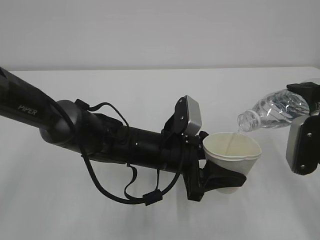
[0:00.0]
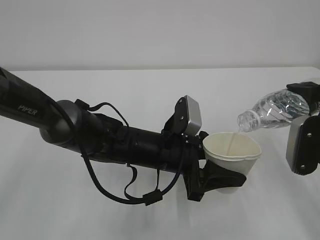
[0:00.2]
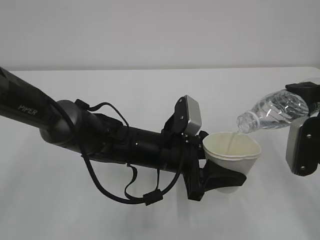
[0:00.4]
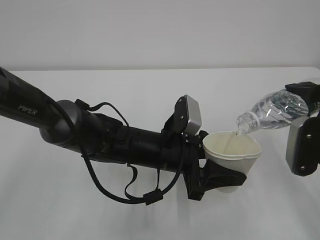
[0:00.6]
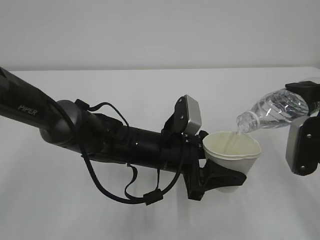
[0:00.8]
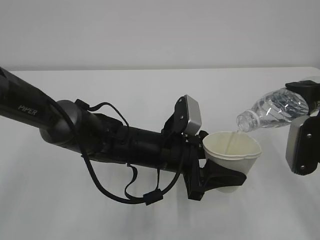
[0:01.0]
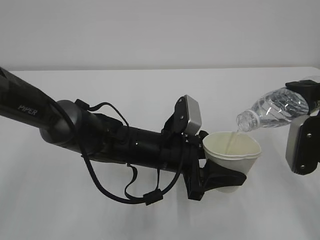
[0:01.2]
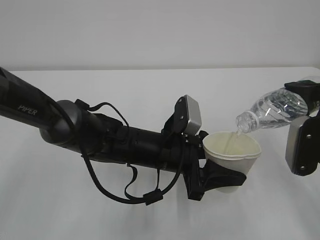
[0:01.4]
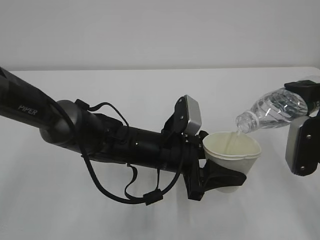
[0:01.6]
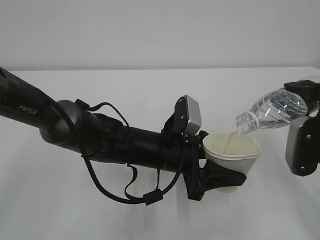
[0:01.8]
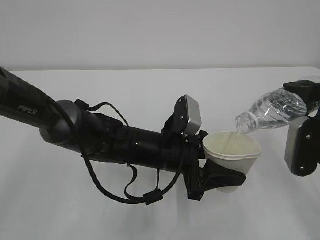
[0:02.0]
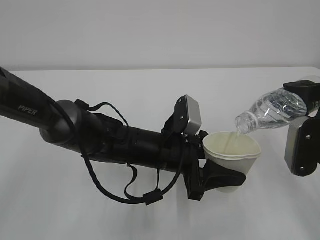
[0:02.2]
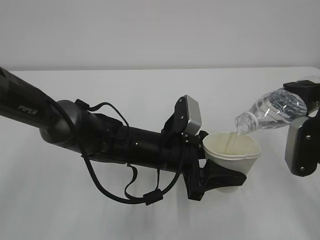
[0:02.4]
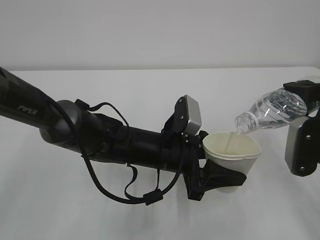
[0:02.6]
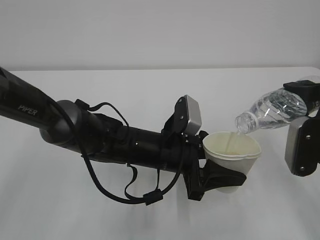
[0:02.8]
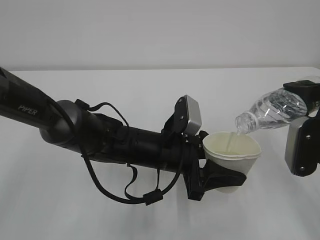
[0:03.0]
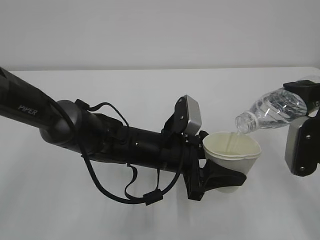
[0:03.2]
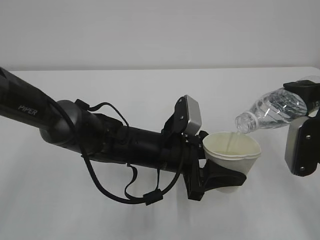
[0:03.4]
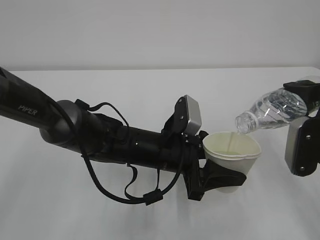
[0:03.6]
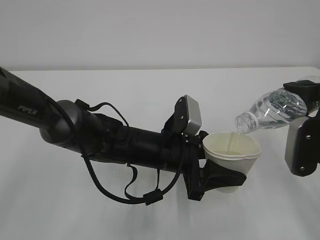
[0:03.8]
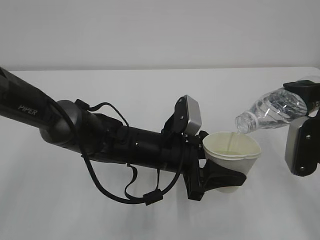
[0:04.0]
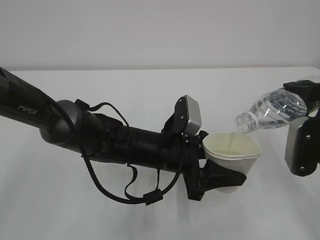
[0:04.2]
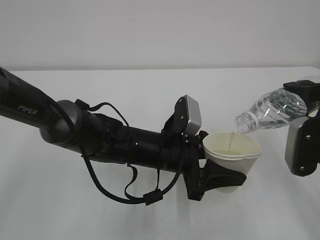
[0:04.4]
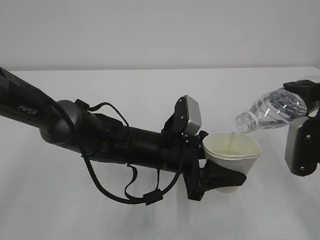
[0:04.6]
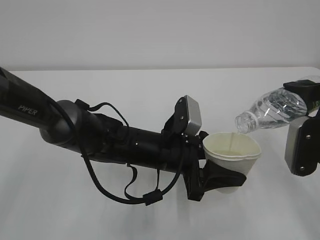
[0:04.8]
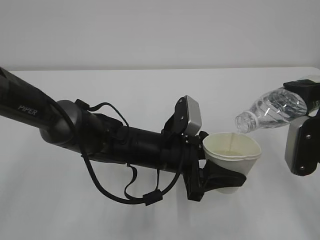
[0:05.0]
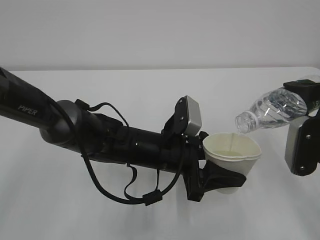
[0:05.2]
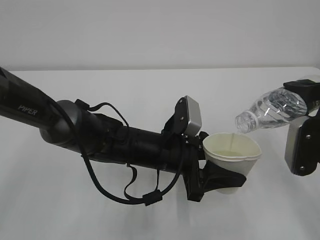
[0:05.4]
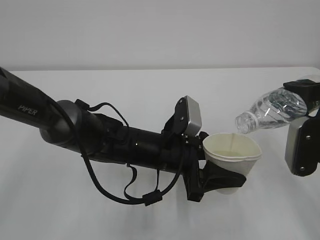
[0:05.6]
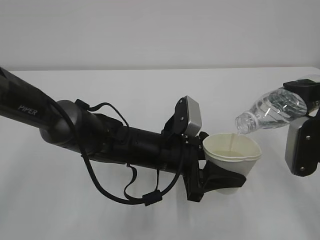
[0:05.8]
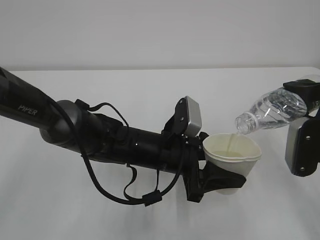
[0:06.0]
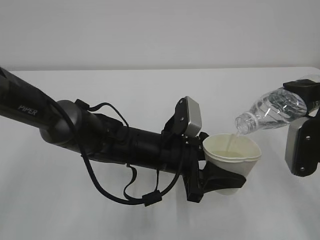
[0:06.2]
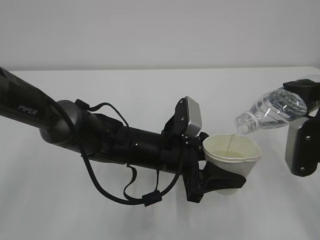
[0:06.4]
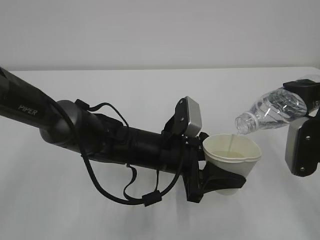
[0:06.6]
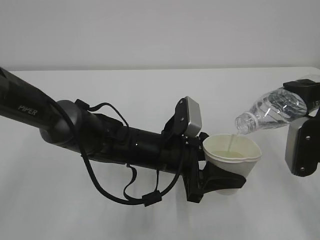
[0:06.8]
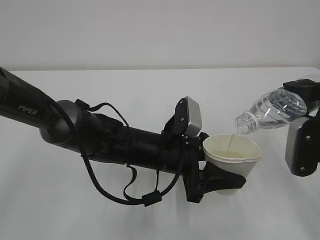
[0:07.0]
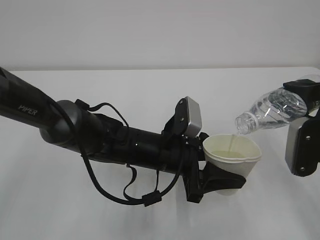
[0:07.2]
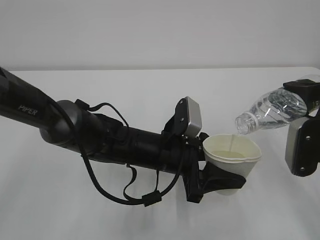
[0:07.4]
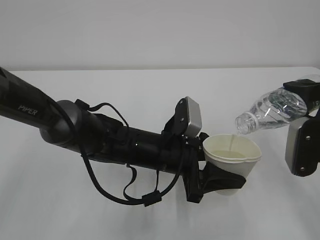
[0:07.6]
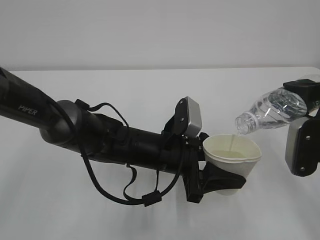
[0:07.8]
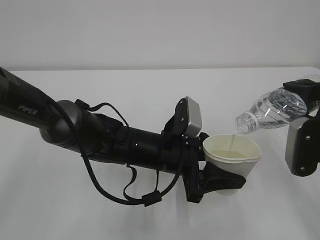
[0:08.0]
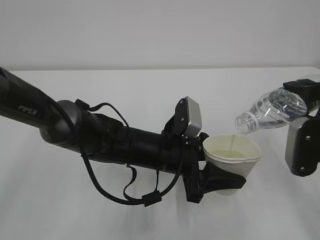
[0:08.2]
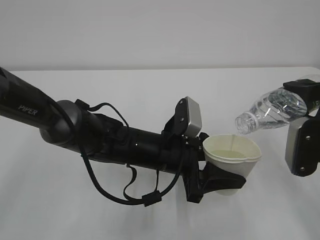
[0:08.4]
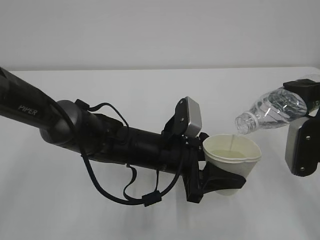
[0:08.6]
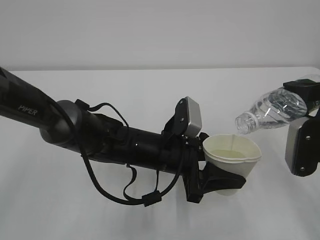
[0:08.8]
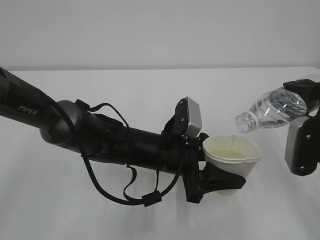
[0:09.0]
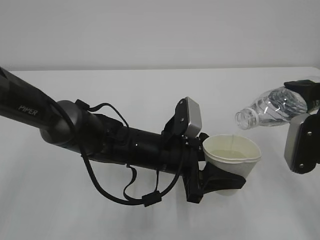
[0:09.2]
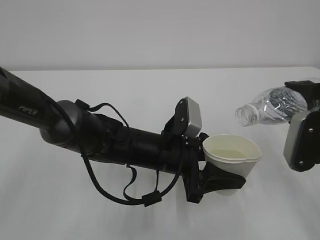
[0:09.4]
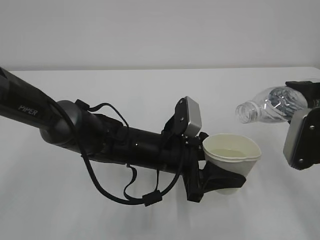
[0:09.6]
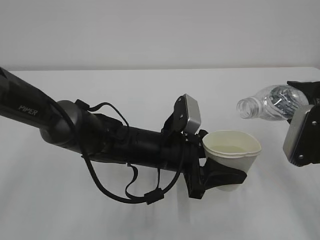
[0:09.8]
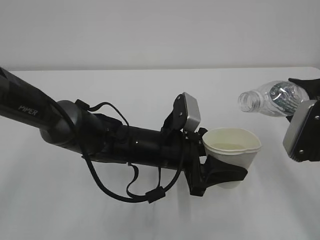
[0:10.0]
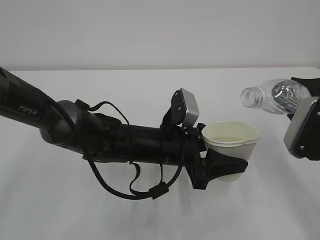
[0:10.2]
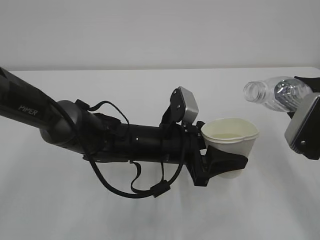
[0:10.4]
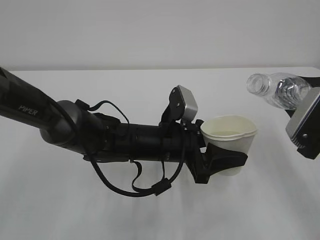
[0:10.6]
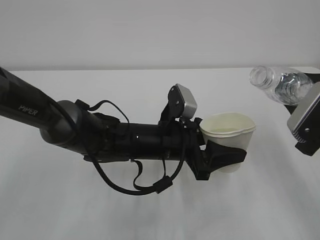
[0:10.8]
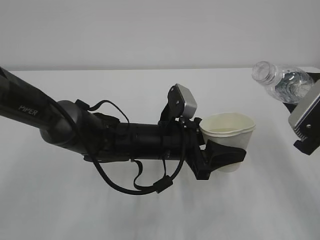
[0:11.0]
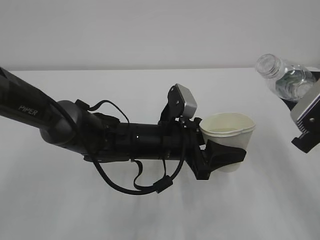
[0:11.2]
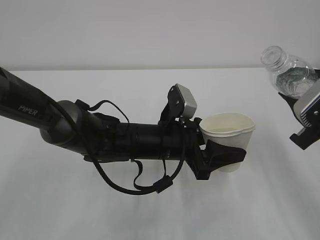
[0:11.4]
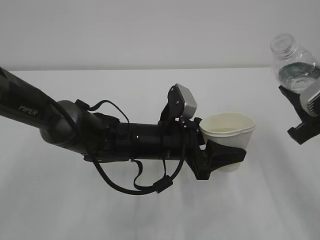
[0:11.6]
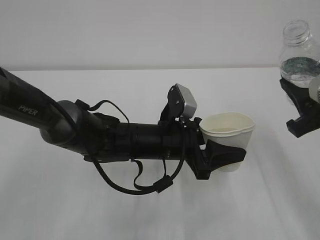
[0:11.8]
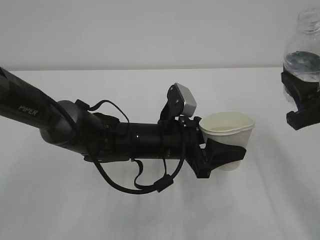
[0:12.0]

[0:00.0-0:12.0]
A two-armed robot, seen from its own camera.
0:00.0 to 0:09.0: Both grippers stay put.

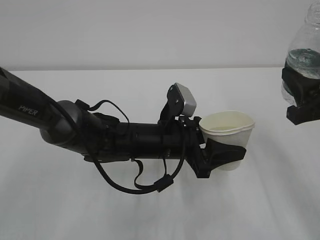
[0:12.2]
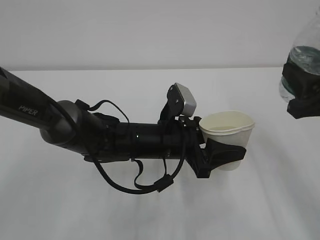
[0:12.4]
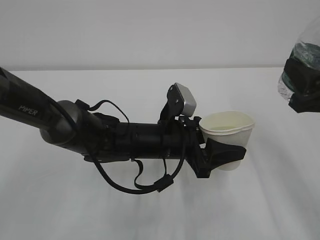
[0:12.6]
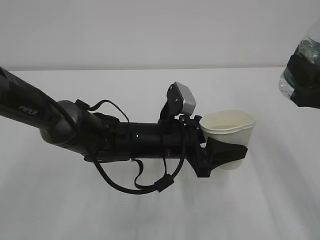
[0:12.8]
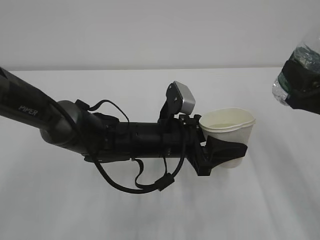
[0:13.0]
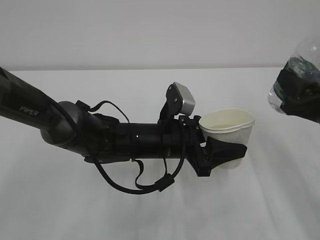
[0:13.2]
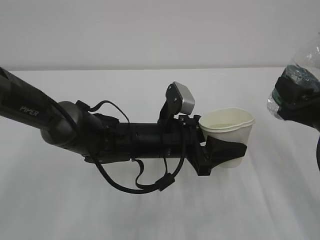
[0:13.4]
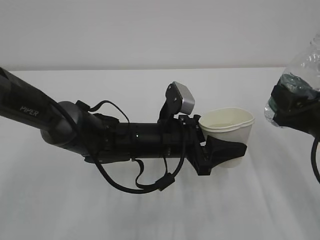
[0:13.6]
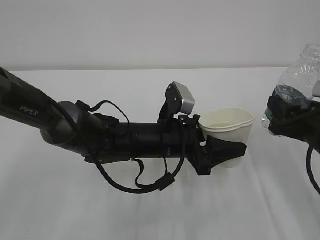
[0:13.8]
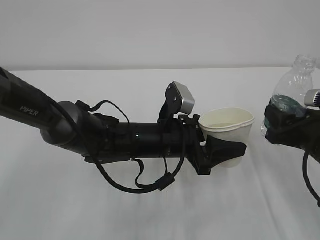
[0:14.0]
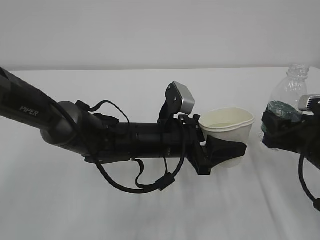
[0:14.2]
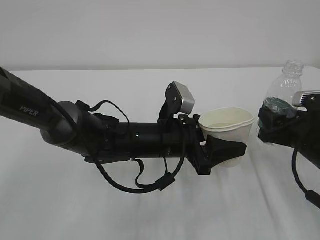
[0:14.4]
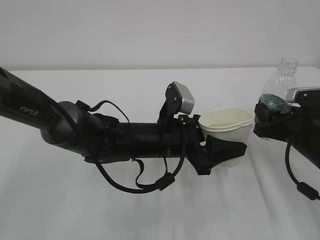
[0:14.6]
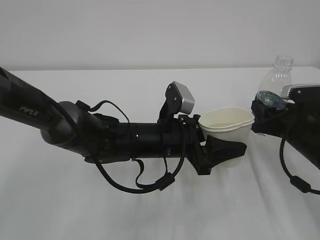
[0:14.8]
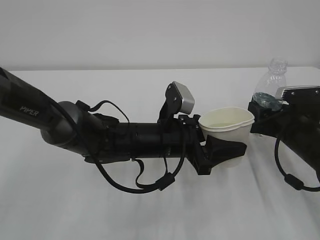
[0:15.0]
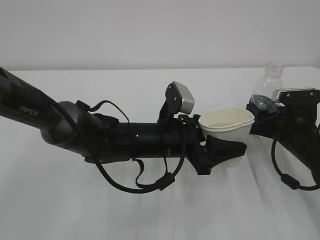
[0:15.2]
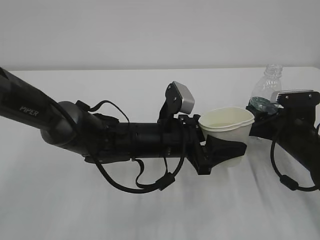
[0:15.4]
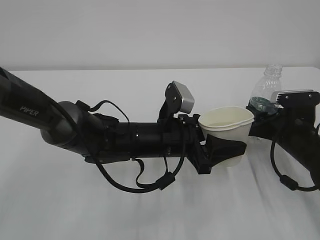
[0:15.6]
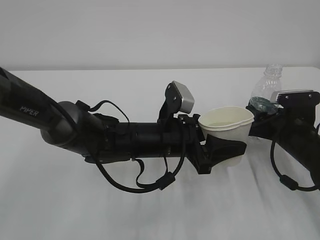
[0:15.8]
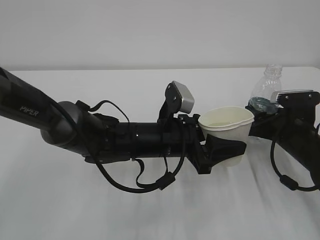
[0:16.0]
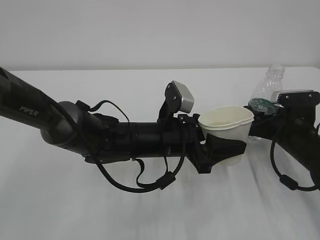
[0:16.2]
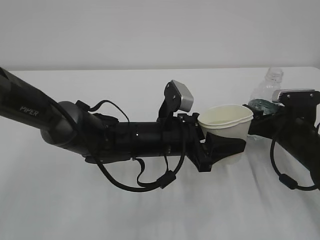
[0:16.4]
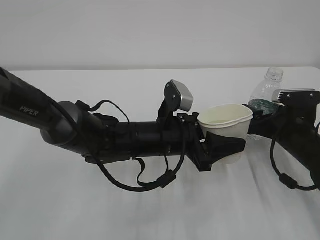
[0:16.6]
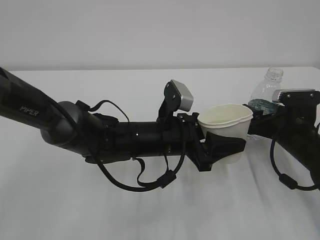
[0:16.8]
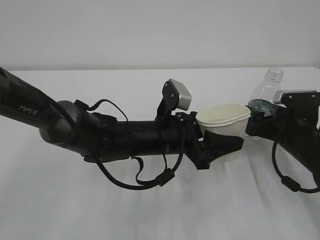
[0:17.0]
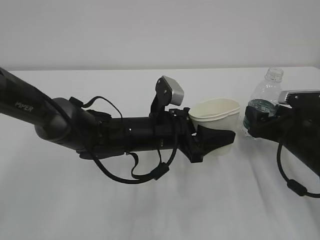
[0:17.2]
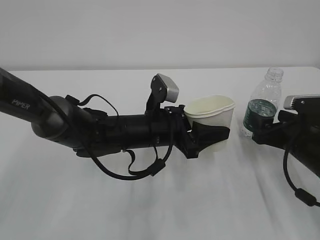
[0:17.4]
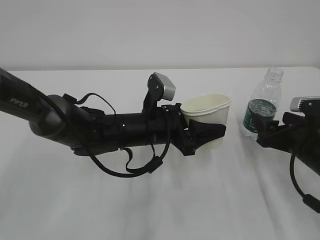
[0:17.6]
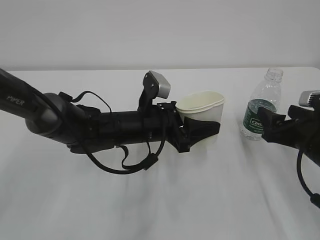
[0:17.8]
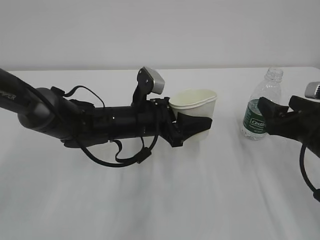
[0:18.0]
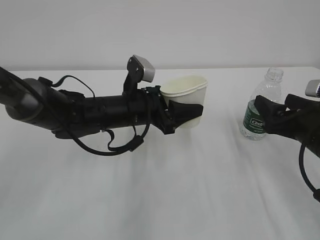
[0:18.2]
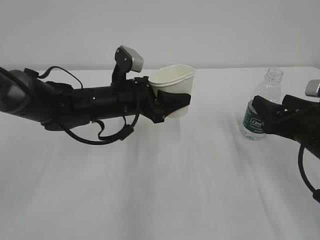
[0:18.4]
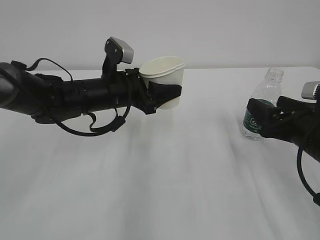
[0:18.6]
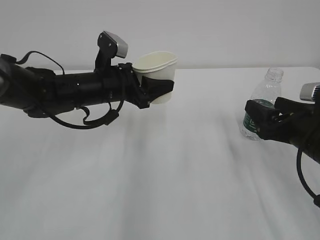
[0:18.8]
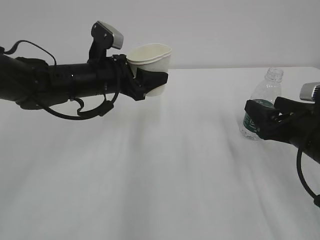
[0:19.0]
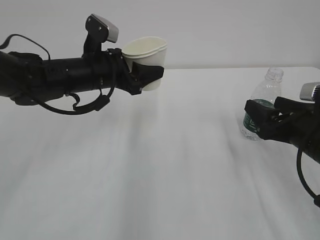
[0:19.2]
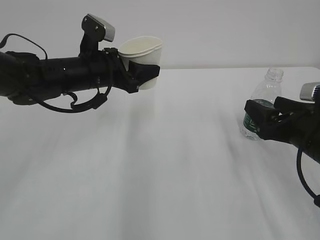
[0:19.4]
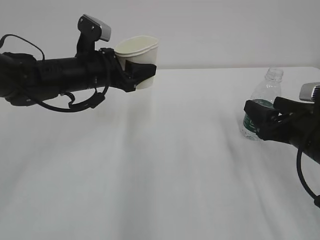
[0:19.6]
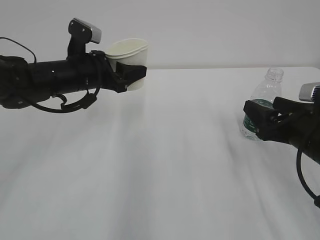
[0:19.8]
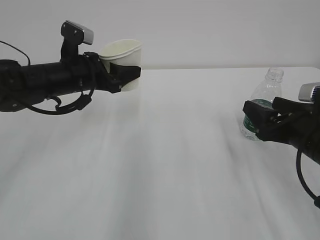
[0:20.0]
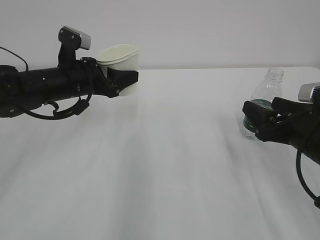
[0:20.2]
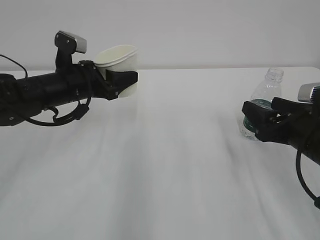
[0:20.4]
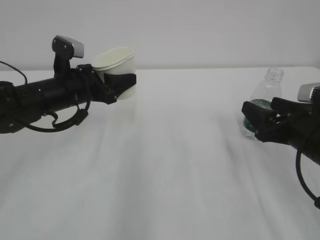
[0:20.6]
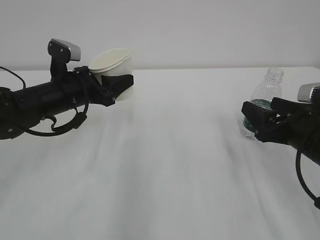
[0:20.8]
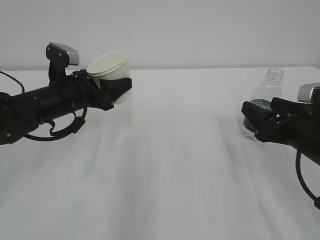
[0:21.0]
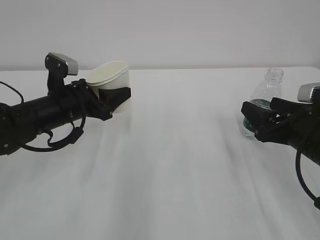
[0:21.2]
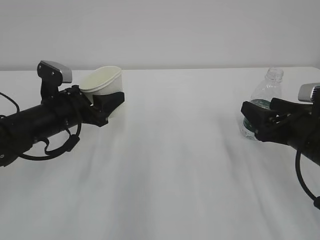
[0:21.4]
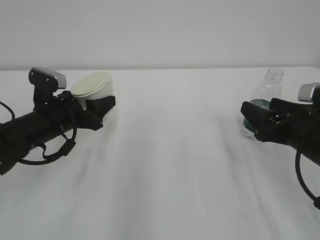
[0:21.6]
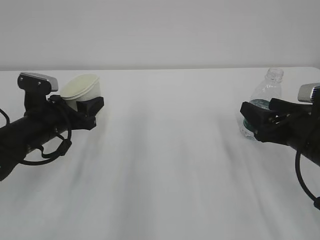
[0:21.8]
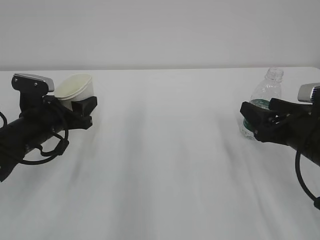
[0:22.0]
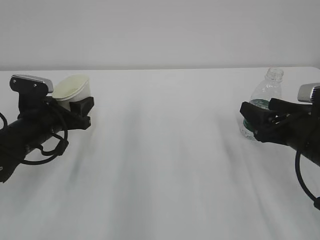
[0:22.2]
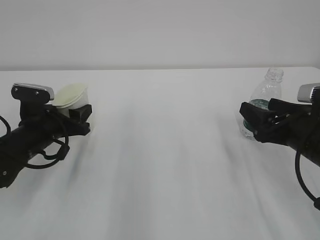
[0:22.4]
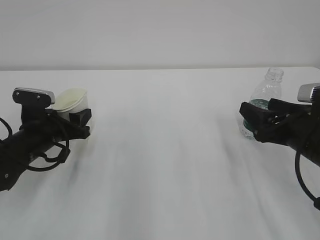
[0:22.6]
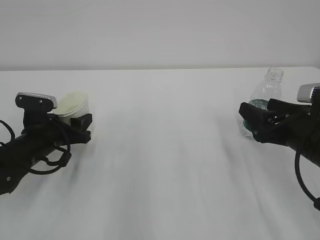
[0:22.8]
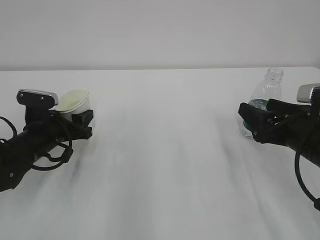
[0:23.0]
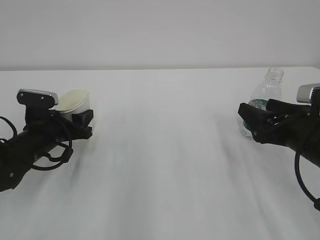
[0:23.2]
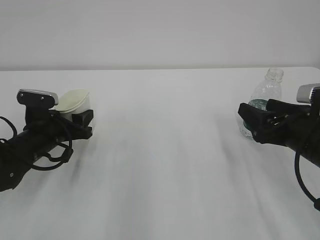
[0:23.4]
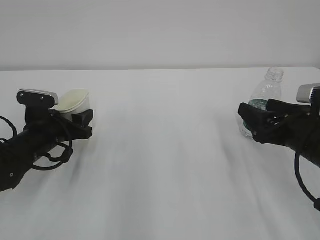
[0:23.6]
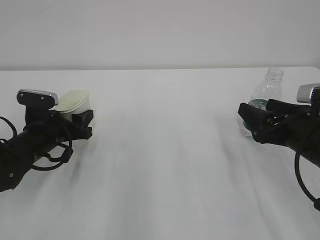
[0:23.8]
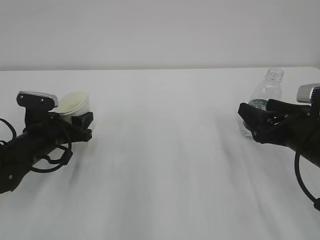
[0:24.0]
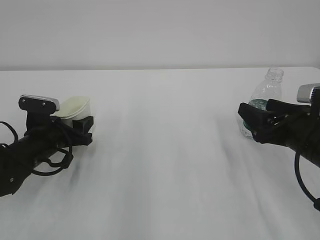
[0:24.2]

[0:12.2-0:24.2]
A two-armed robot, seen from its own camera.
0:12.2 to 0:13.8: The right gripper heads downward, covering about 5 cm.
0:13.8 to 0:15.2: The right gripper shifts about 10 cm forward and downward.
0:15.2 to 0:16.6: The right gripper opens.
0:16.6 to 0:18.2: The left gripper is displaced to the left by roughly 5 cm. The right gripper shifts approximately 10 cm backward and upward.
0:18.2 to 0:19.8: The left gripper is displaced to the left and upward by approximately 10 cm.
0:19.8 to 0:21.2: The left gripper changes place by some 5 cm.
0:21.2 to 0:22.6: The left gripper moves downward, approximately 5 cm.
0:22.6 to 0:24.2: There are only small adjustments of the grippers.
